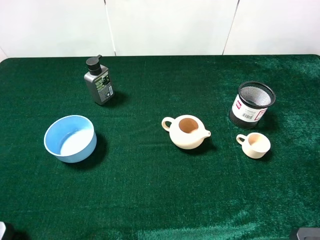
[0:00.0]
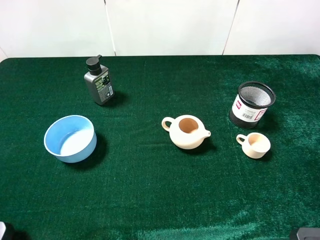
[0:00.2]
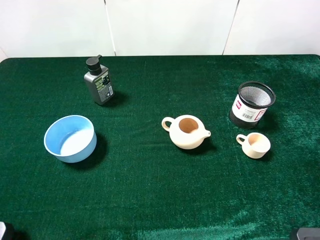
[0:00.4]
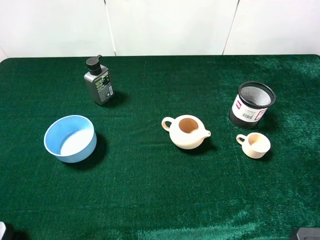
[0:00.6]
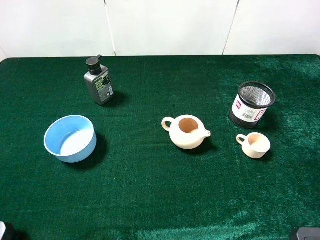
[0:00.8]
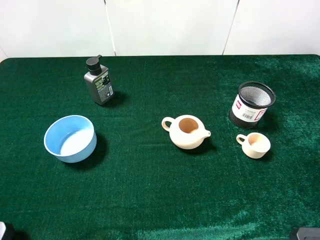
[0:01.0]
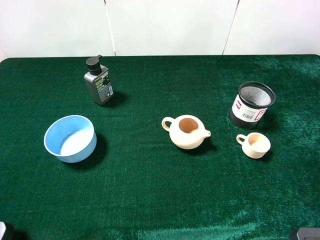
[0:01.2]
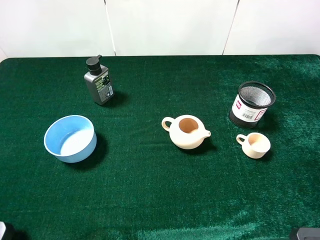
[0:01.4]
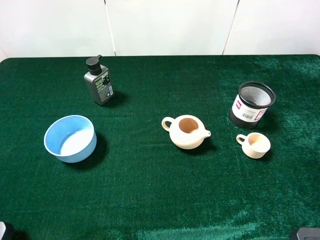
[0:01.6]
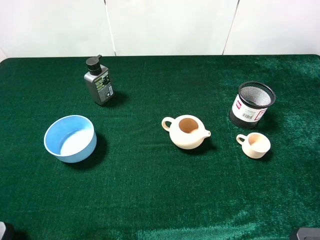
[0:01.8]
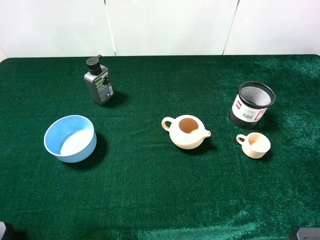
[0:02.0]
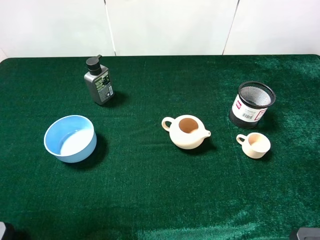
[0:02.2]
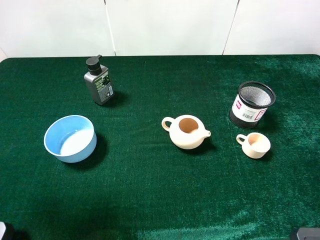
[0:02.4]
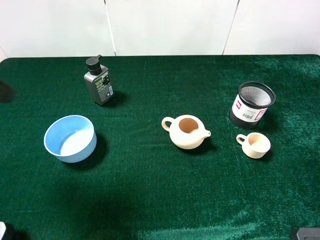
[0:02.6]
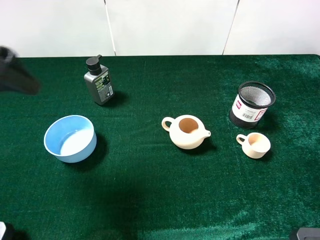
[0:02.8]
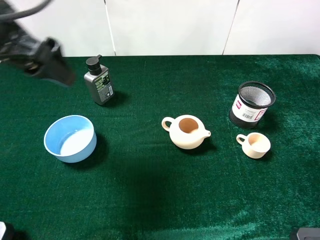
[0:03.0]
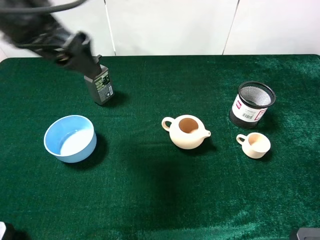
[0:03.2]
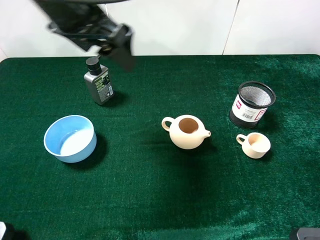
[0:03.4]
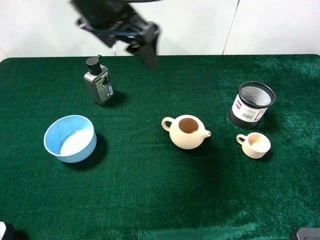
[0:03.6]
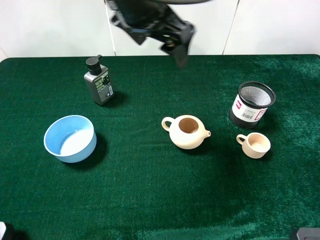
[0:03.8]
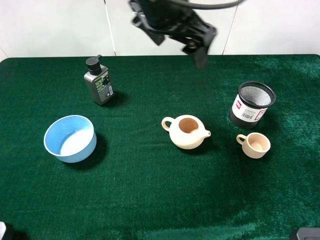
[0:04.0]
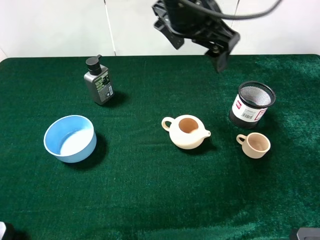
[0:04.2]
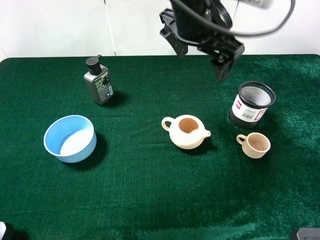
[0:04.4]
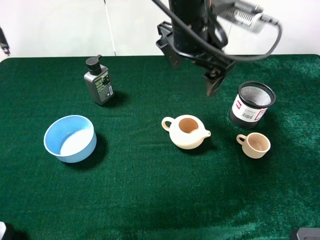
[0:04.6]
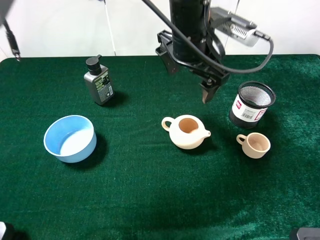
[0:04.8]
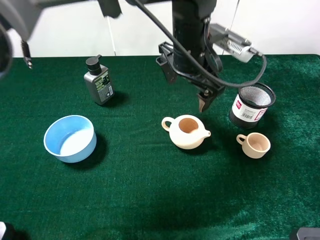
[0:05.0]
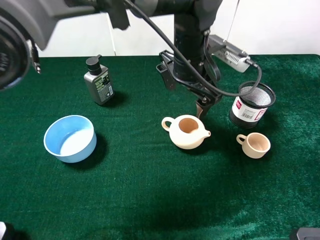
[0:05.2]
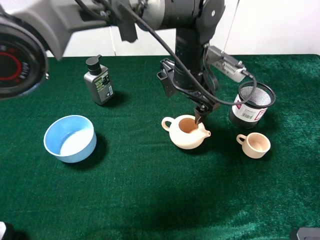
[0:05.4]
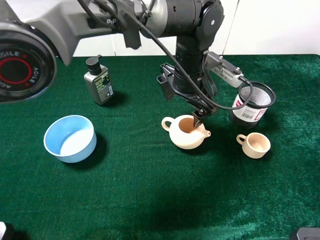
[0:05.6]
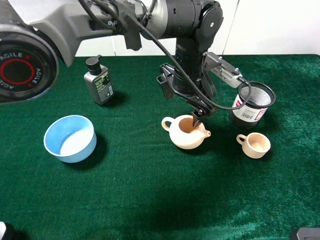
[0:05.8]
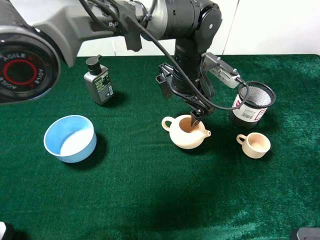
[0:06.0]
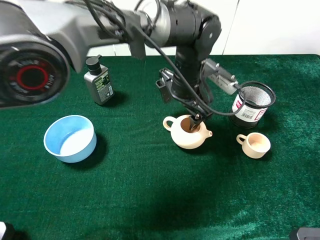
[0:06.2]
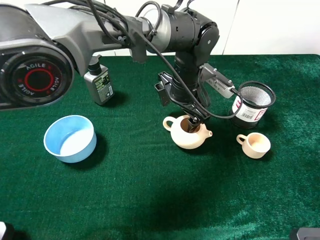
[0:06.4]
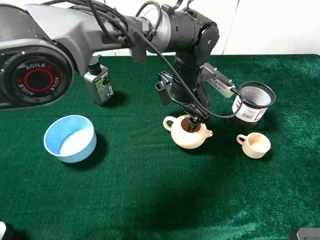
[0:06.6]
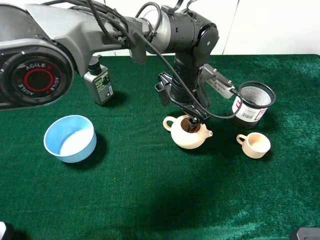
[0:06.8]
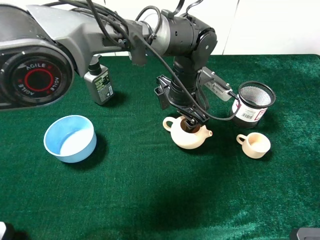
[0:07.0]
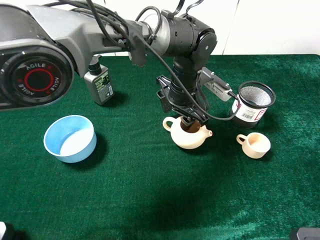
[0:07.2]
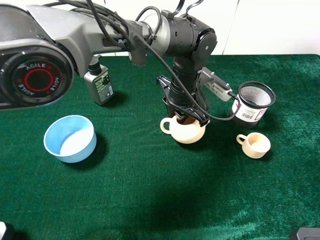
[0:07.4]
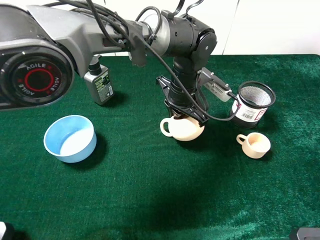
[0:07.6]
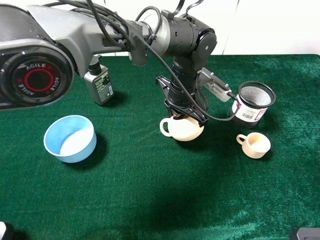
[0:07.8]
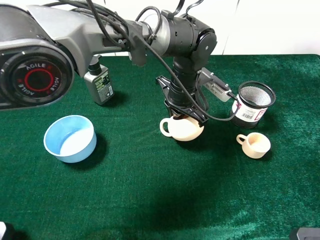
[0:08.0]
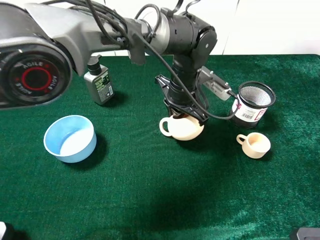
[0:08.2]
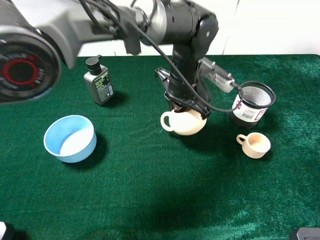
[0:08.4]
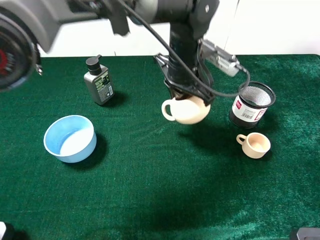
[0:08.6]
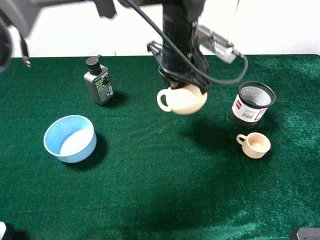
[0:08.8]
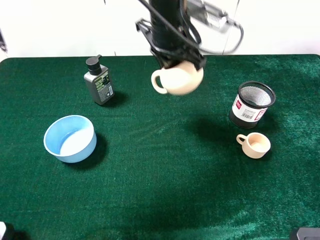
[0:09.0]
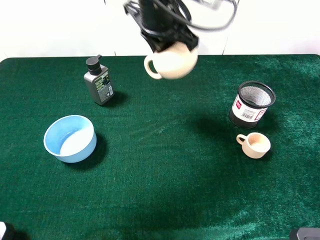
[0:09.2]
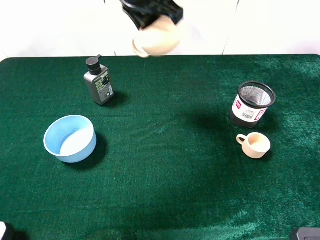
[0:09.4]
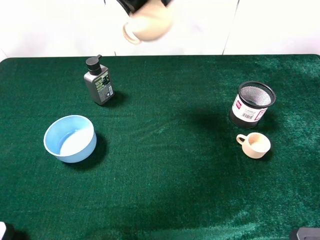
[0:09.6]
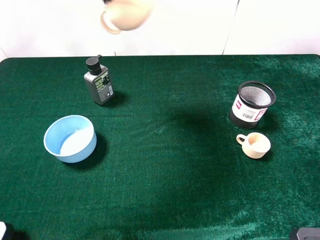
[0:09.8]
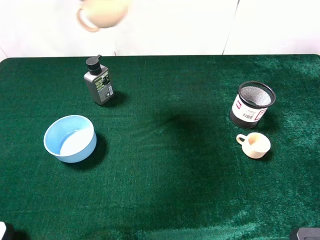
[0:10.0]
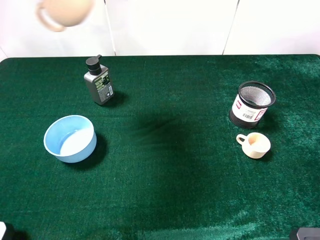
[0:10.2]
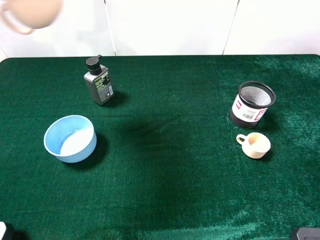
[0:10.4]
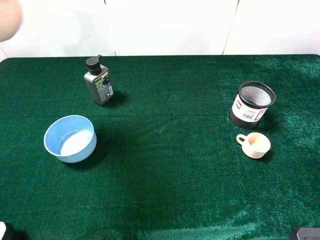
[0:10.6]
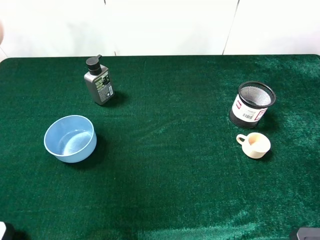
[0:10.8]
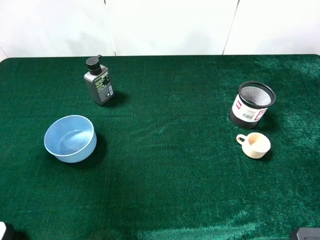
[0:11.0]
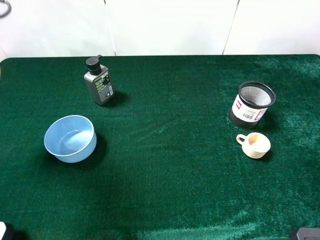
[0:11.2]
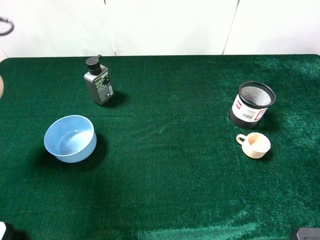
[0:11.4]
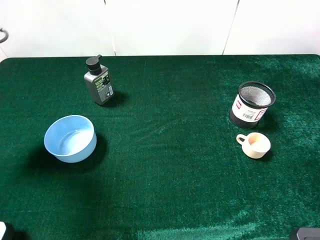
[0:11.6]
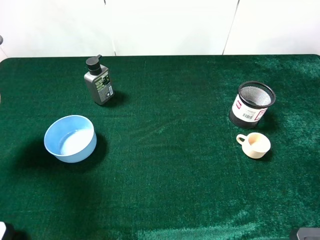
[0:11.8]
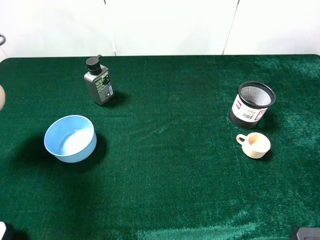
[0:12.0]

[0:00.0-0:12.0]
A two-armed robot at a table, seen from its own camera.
Task of the whole recording: the gripper move the object.
Step, 0:00.0 to 0:07.4: Grasp the teapot with the left gripper.
0:00.0 to 0:01.6: Neither gripper changes place.
0:01.6 to 0:03.0: The left gripper heads forward and to the right, covering roughly 25 cm.
0:03.0 to 0:04.4: The left gripper moves to the right, about 25 cm.
0:04.4 to 0:06.0: The left gripper goes roughly 15 cm downward.
0:06.0 to 0:07.6: The left gripper closes its fingers.
0:07.6 to 0:09.0: The left gripper heads upward, covering approximately 15 cm.
0:09.0 to 0:10.4: The left gripper shifts some 25 cm to the left and upward.
0:10.4 to 0:12.0: The left gripper shifts some 20 cm downward and to the left.

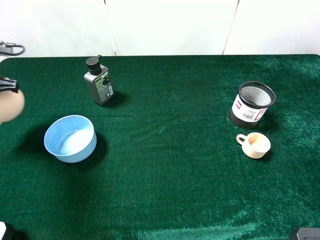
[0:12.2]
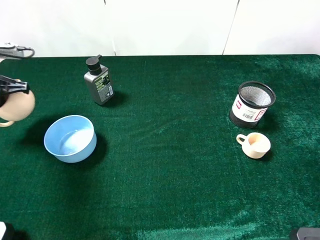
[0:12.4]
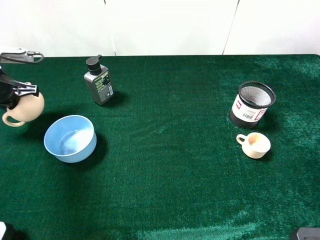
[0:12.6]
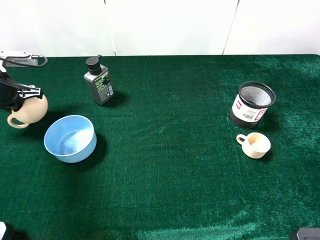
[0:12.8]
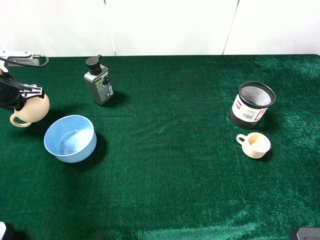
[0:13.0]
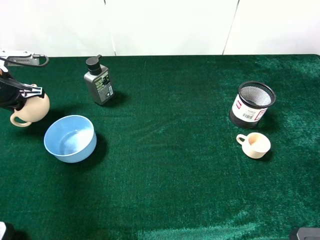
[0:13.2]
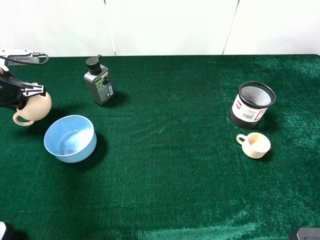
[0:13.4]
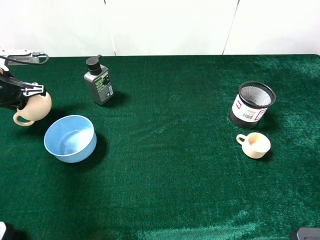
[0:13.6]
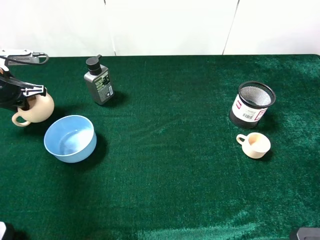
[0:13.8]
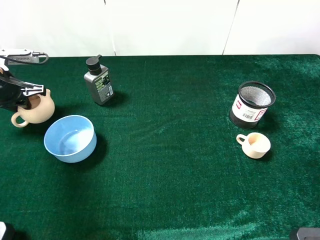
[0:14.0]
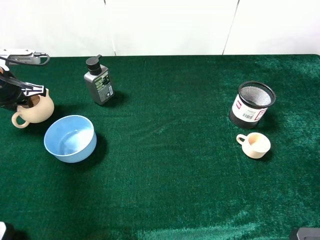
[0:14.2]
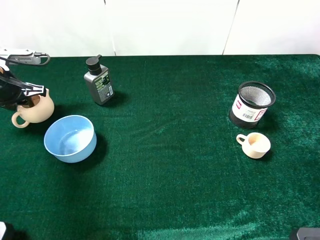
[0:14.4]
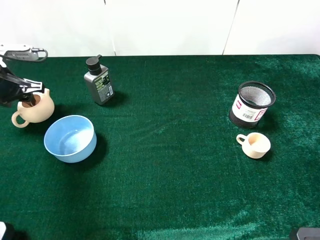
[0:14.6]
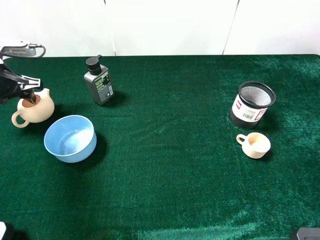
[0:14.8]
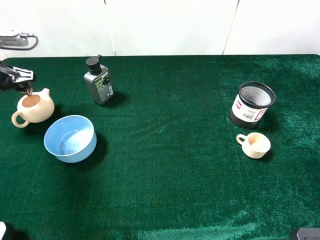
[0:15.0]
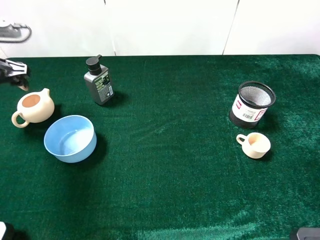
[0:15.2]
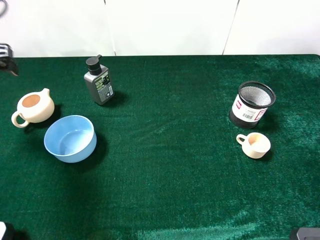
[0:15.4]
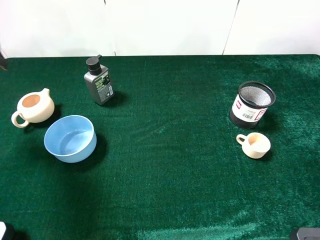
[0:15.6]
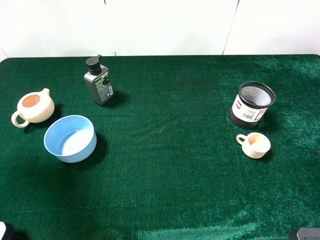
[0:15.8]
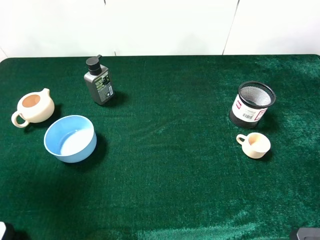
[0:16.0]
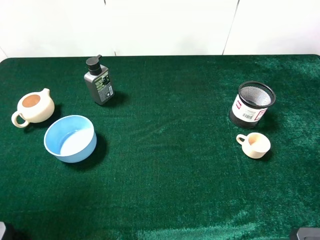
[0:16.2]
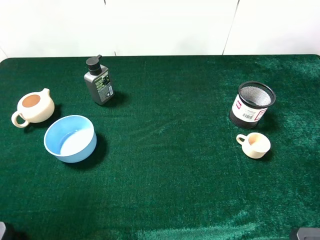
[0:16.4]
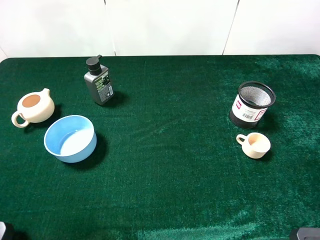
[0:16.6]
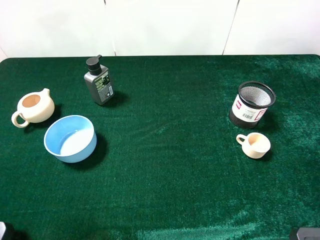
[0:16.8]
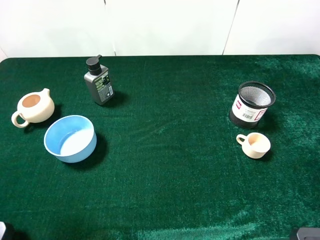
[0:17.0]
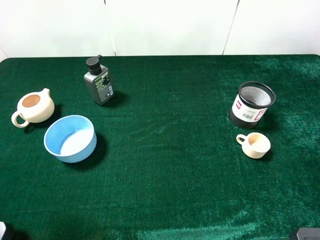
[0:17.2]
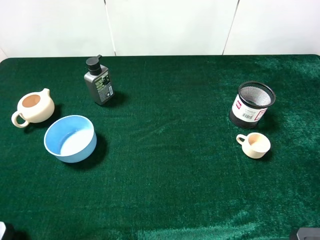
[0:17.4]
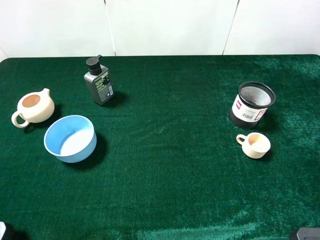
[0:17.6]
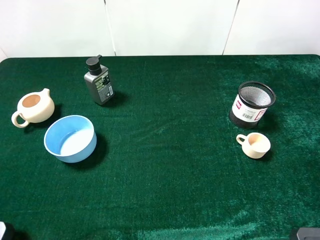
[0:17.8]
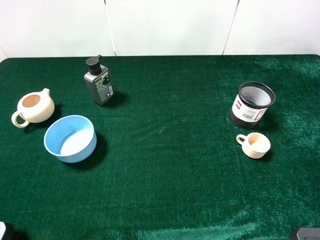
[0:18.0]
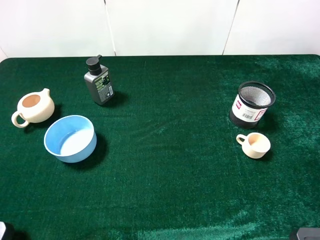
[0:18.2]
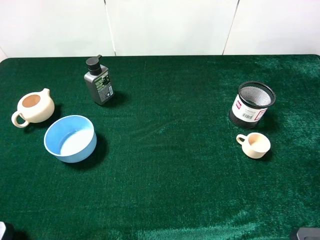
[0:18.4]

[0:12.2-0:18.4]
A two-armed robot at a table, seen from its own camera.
Task of the whole recording: the gripper move the object.
Step, 0:12.2 to 0:14.2: Place the teapot on the table with the left gripper.
0:12.2 to 0:13.8: The left gripper goes roughly 5 cm downward.
0:13.8 to 0:15.4: The left gripper heads upward, covering about 10 cm, and opens.
0:15.4 to 0:16.8: The left gripper shifts about 20 cm backward.
